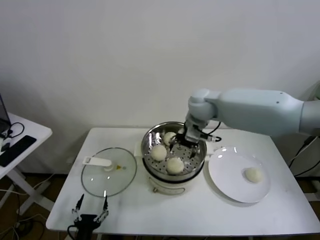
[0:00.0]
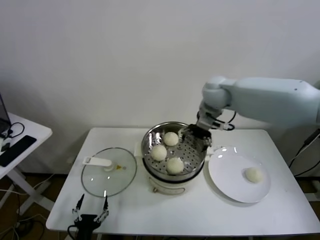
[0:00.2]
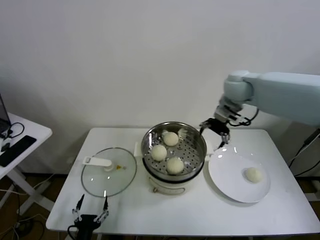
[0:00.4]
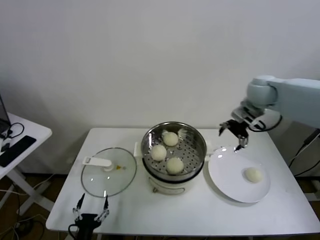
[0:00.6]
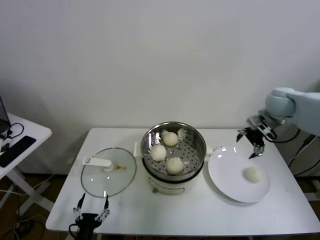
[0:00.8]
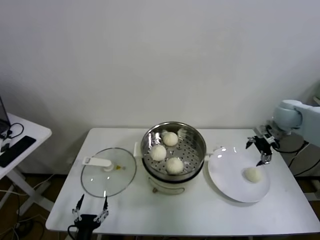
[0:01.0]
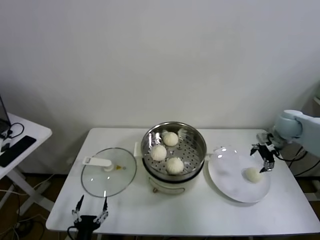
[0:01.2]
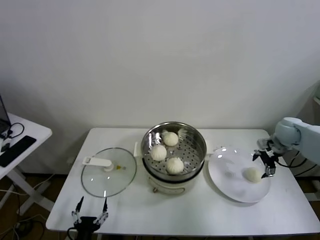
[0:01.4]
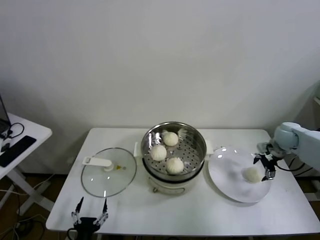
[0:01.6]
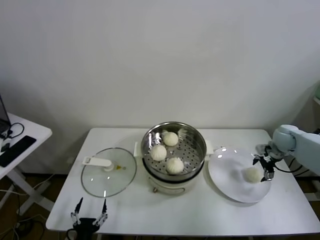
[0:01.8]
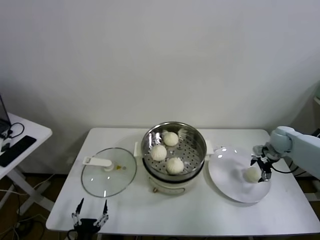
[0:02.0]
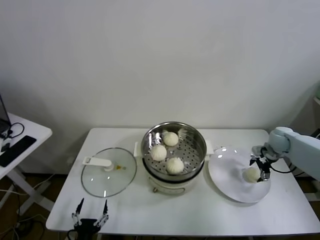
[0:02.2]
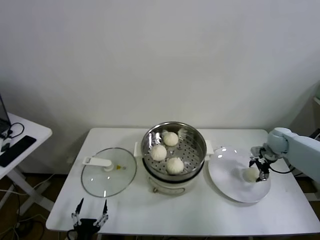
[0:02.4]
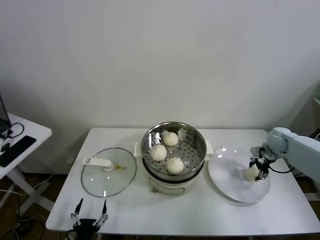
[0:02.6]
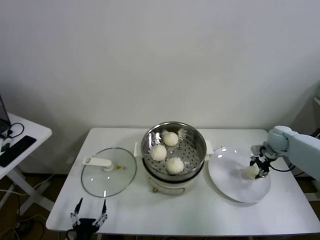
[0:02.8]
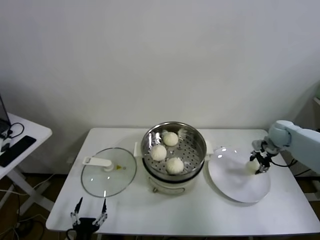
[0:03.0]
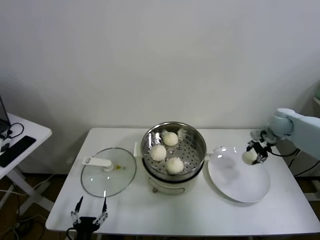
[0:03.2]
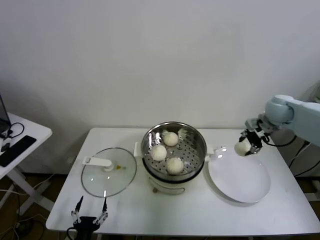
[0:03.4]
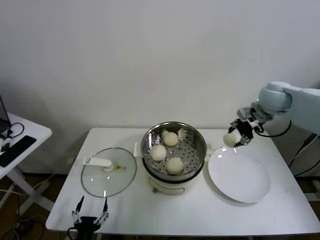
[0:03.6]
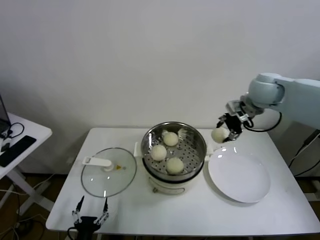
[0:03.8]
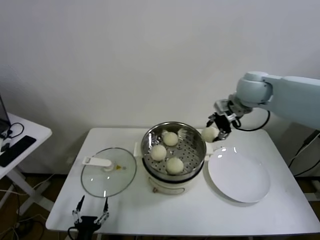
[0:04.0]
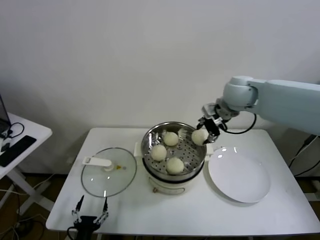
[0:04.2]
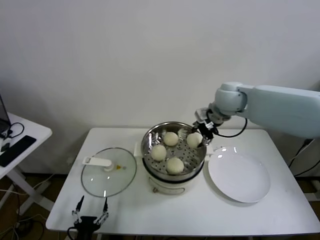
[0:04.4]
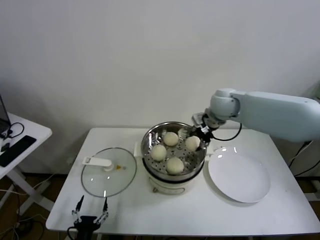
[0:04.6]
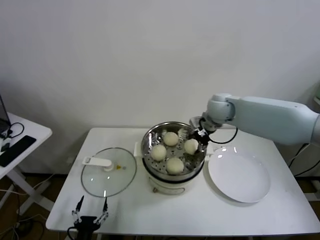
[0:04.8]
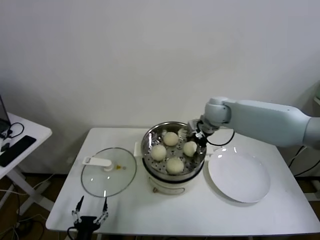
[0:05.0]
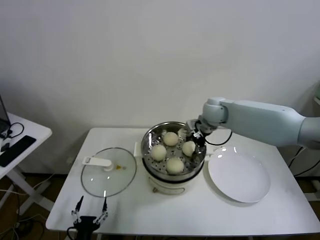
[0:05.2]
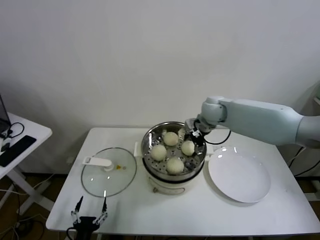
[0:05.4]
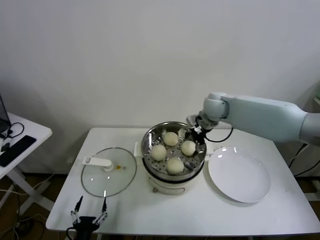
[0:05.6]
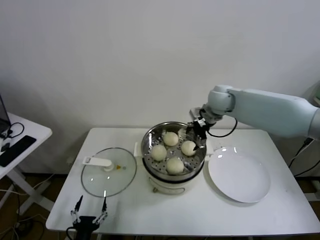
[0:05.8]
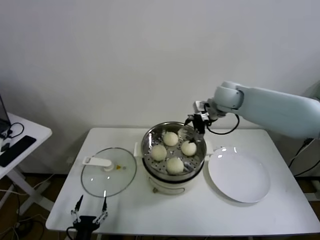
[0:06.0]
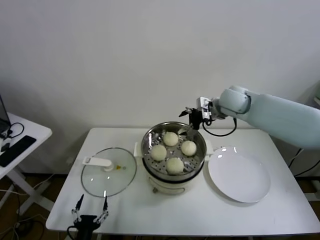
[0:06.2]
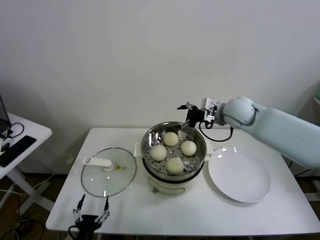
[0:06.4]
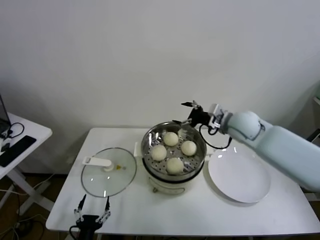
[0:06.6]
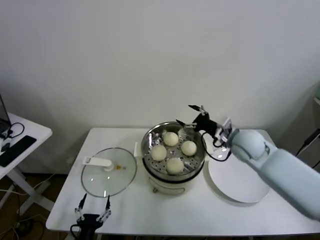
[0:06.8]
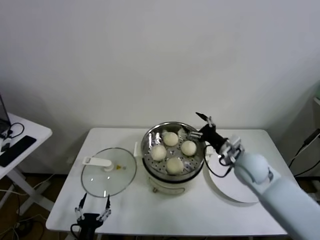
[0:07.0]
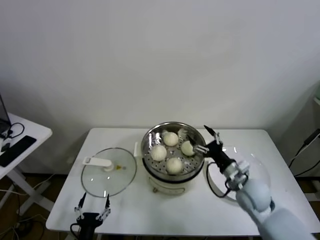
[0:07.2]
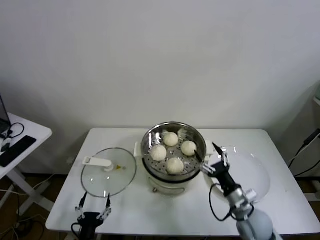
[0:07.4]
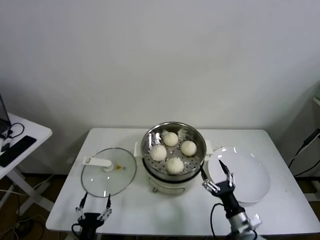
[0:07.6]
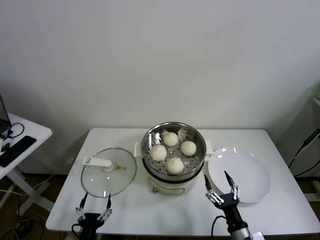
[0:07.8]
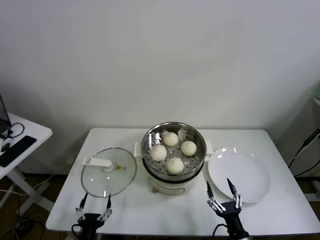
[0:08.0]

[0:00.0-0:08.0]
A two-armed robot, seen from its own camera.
Task of the whole recording: take steamed baozi put them in steamer.
Step, 0:00.0 to 0:02.4: Grasp the baozi in the plate with right gripper.
Step, 0:02.6 to 0:05.6: Place the baozi on the steamer with right gripper.
0:00.0 to 0:01.6: The right gripper heads to the right, covering approximately 35 cm.
0:01.6 to 0:03.2: The right gripper closes.
0:03.2 to 0:04.8: The right gripper moves to the left, about 25 cm.
0:04.8 to 0:06.4: The right gripper opens its fingers.
0:06.4 to 0:08.0: The right gripper heads backward and downward, covering roughly 50 cm.

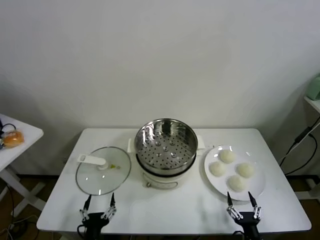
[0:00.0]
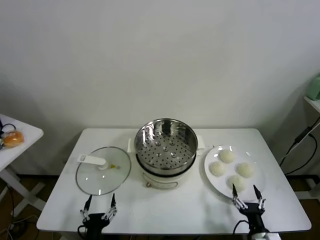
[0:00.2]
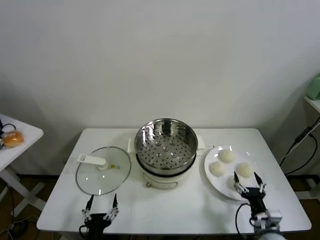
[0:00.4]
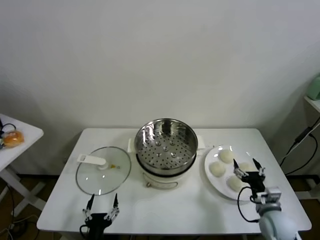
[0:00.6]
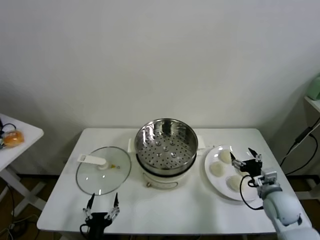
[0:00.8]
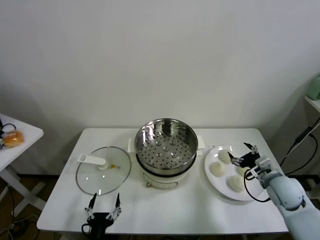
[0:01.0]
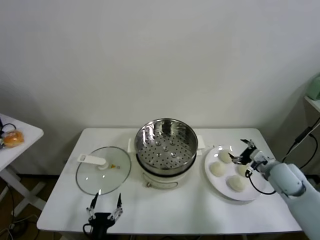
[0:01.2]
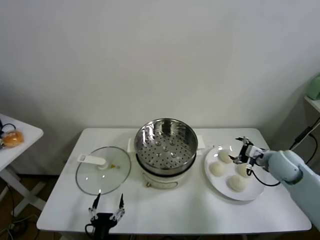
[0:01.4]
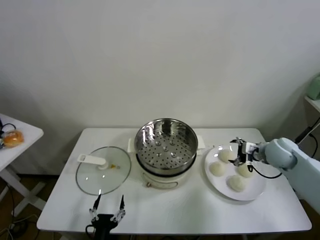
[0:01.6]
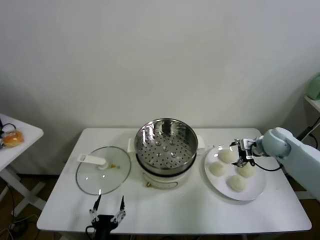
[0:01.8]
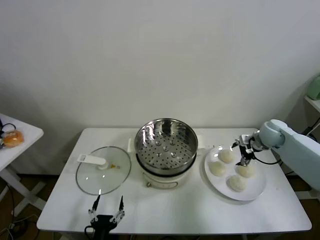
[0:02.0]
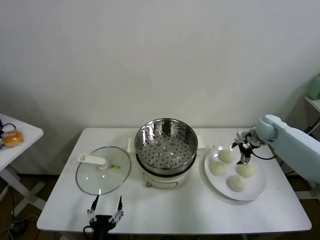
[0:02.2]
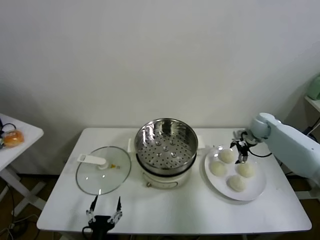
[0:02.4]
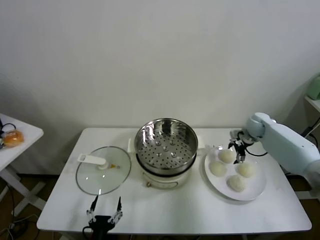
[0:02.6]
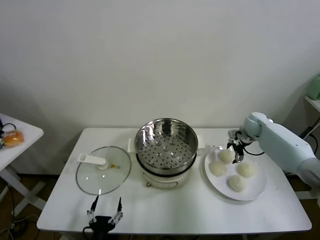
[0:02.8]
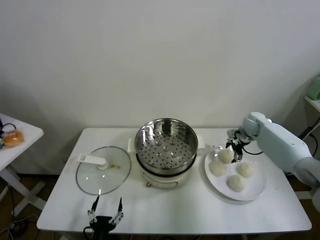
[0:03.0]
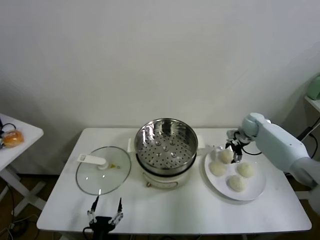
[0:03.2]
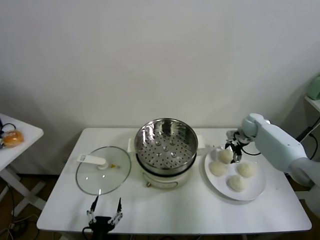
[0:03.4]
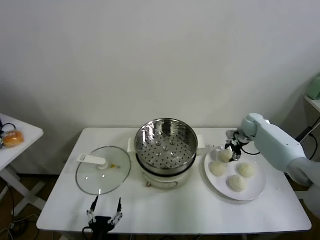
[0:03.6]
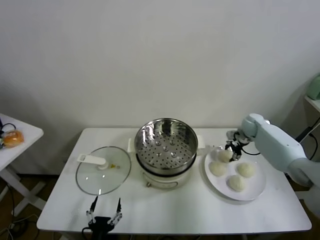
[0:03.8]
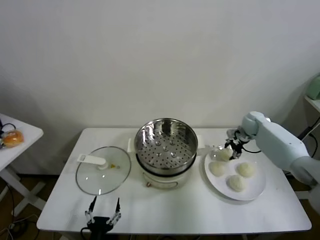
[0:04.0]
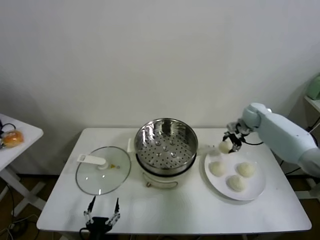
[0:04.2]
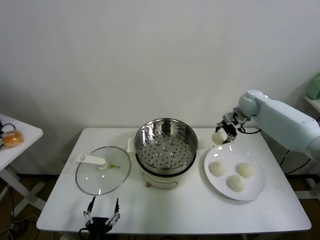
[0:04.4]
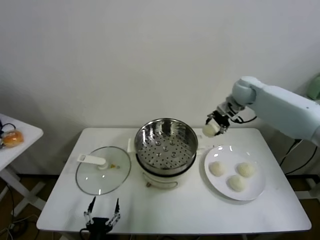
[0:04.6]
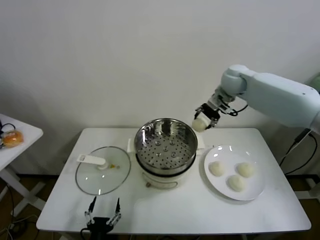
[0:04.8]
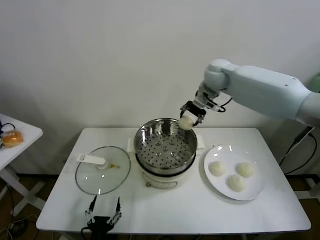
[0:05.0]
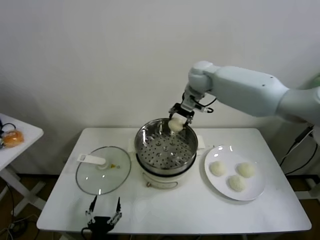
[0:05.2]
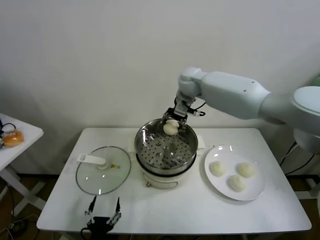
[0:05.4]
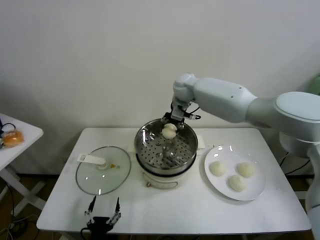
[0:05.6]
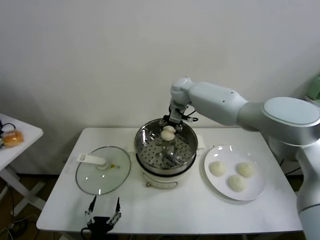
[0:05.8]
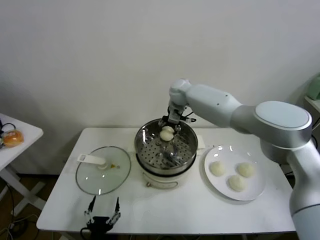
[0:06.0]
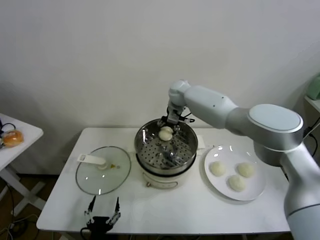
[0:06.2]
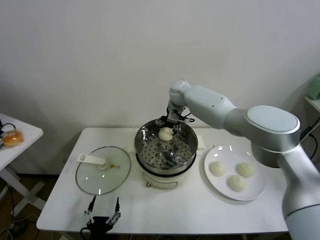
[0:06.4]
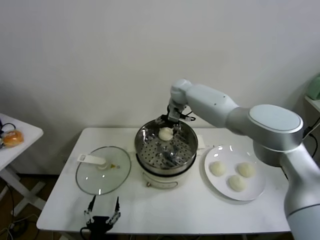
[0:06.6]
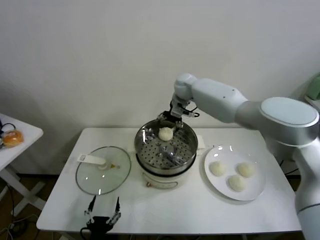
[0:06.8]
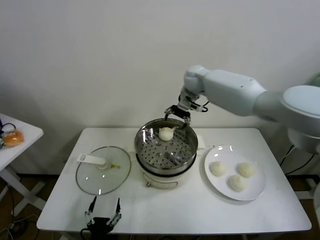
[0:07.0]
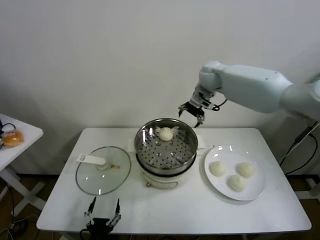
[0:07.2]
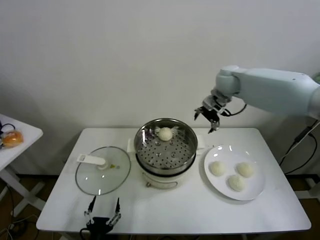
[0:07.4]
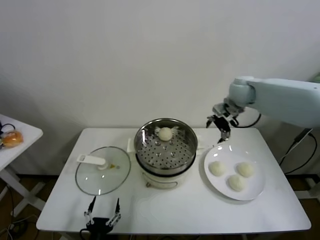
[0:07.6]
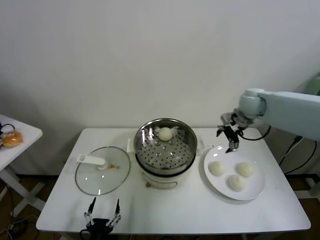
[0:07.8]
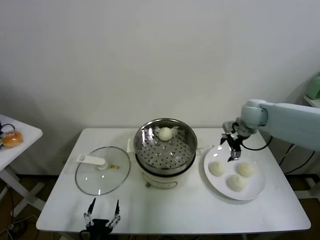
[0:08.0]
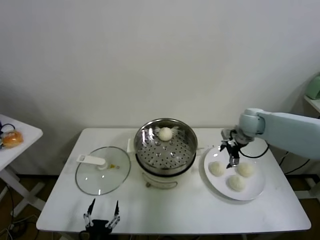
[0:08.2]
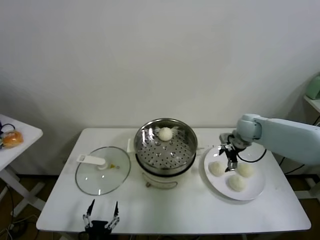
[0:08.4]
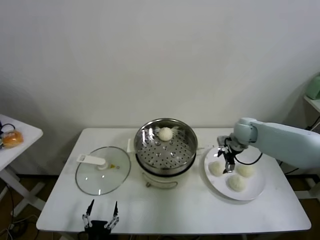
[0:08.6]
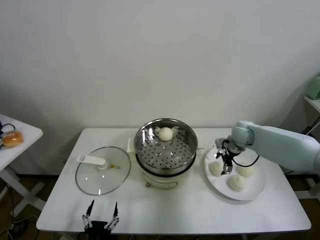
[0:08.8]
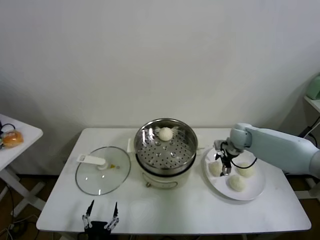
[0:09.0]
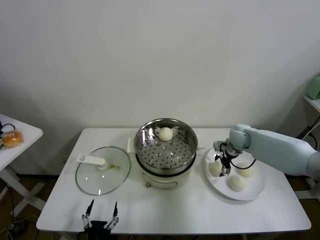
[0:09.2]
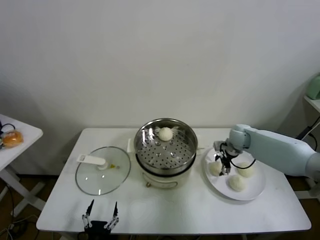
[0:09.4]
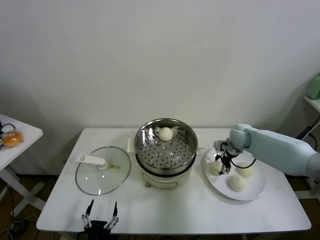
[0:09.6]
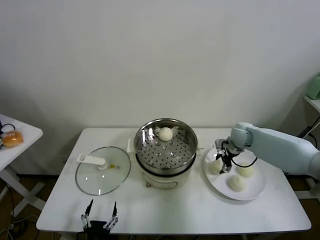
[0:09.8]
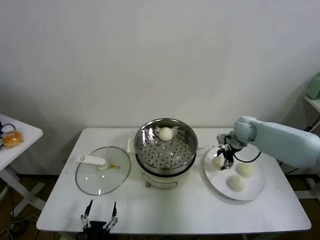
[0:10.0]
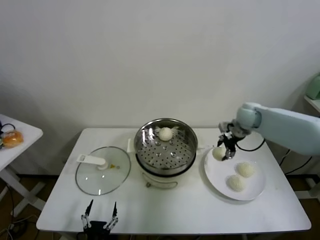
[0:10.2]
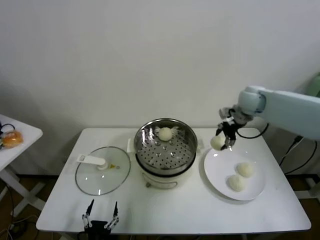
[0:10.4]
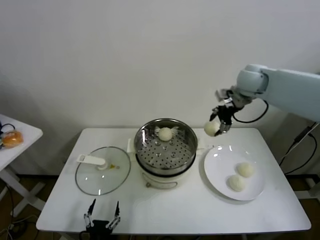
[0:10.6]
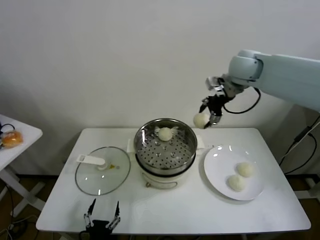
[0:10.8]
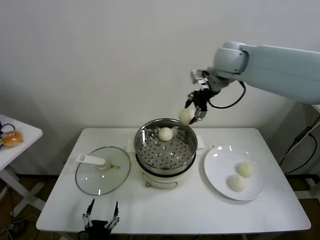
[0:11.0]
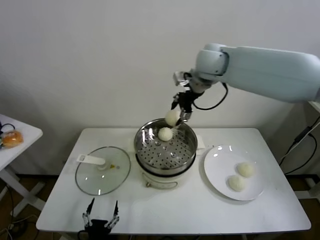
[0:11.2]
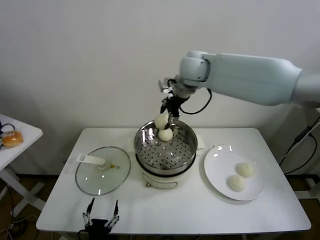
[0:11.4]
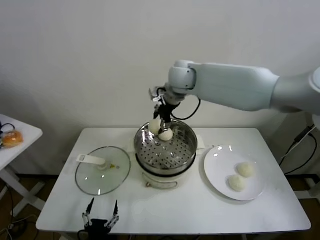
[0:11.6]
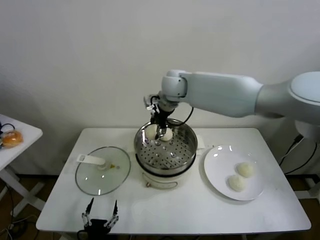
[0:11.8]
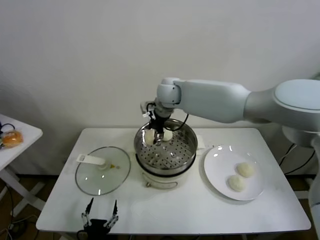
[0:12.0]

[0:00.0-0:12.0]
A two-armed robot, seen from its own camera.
Task of the whole recording: take steamed baozi put them in steamer.
Step, 0:00.0 to 0:03.6: Grasp the baozi in the plate with right gripper.
Step, 0:03.8 to 0:06.6: Place the baozi on the steamer with right gripper.
Step, 0:06.8 to 0:09.4: Grasp the baozi in the plate with right gripper.
0:01.6 to 0:03.0: The right gripper moves forward, roughly 15 cm.
0:03.0 to 0:04.4: The right gripper moves upward and to the left, some 15 cm, and closes.
0:04.4 to 0:06.0: The right gripper heads to the left, covering approximately 25 cm.
0:06.0 to 0:07.6: The right gripper moves to the right, roughly 20 cm, and opens.
0:07.6 to 0:09.0: The right gripper heads downward, covering some 20 cm.
0:09.0 to 0:10.4: The right gripper goes approximately 20 cm upward, and closes its fingers.
0:10.4 to 0:12.0: The right gripper shifts some 30 cm to the left.

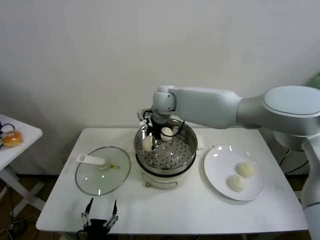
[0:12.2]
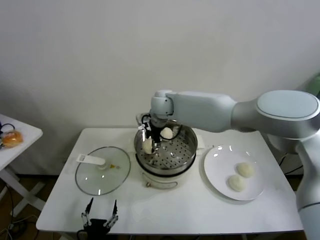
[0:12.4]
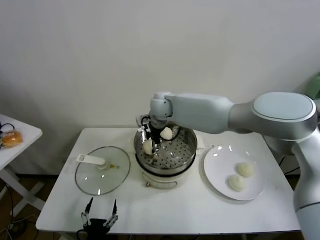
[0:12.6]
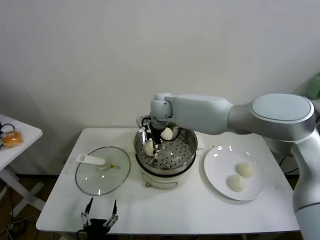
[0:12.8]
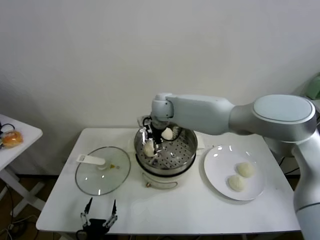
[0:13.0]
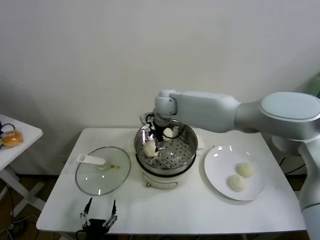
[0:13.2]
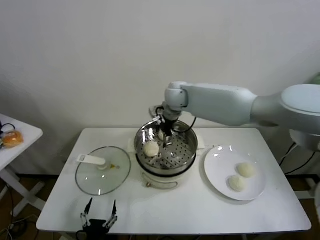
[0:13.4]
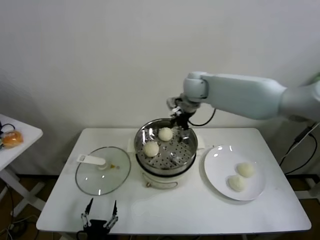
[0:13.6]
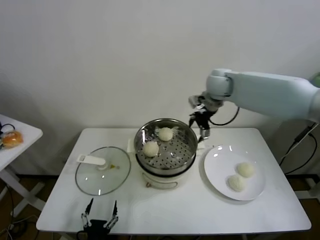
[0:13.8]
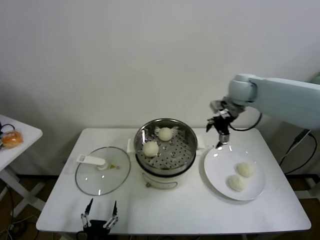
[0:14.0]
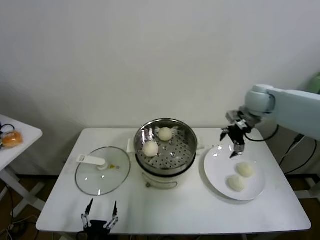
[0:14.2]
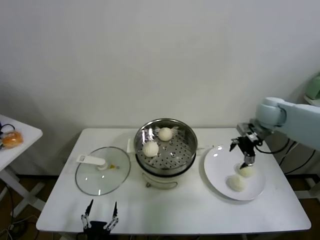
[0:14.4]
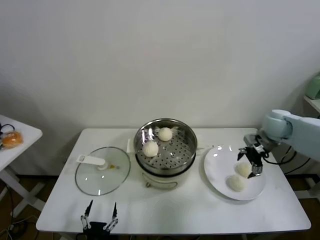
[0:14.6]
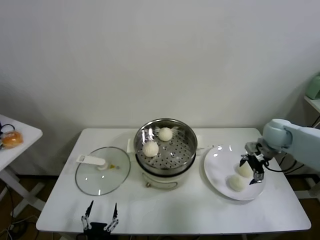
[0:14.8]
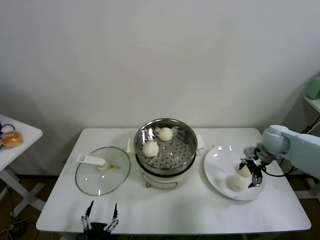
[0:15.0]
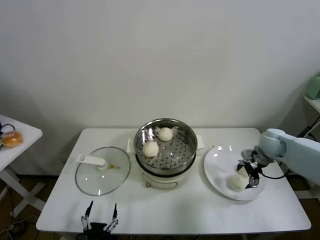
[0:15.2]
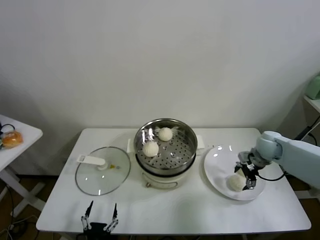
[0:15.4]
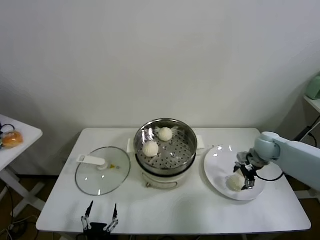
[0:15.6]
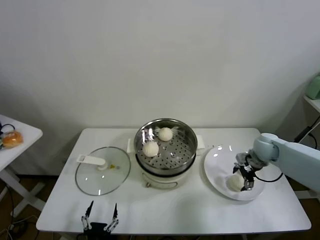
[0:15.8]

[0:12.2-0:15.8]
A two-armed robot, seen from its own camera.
Task of the whole recording: take steamed baozi put them in steamer.
0:12.2 to 0:14.0: The right gripper goes roughly 25 cm to the right, and opens up.
0:14.0 to 0:15.8: The right gripper shifts approximately 25 cm downward and to the right.
